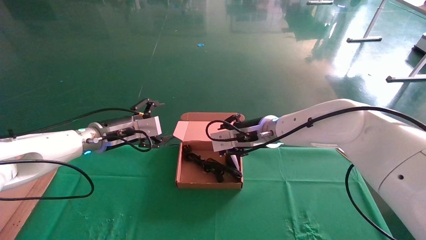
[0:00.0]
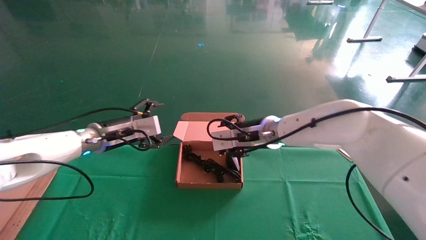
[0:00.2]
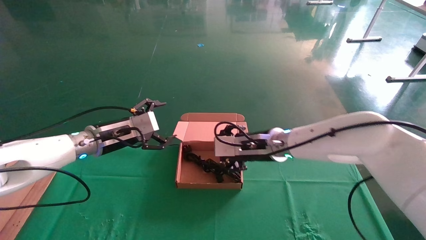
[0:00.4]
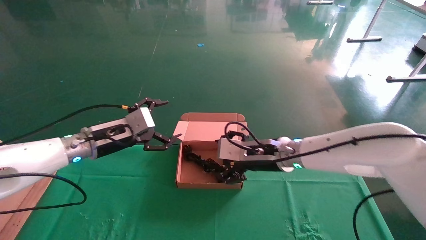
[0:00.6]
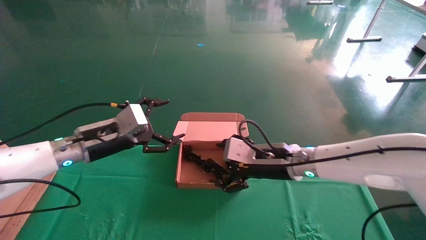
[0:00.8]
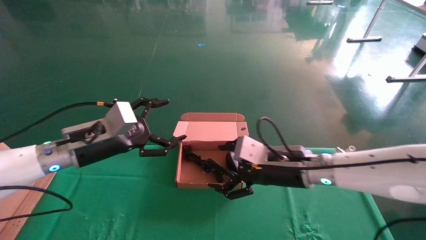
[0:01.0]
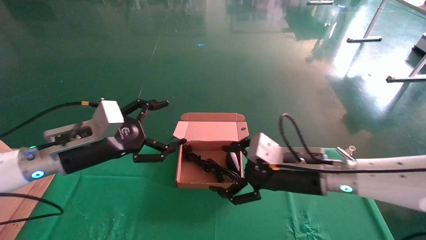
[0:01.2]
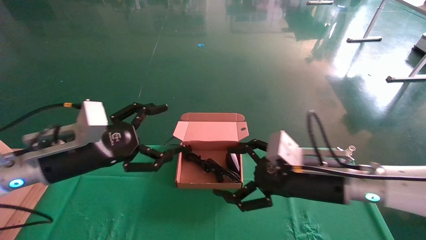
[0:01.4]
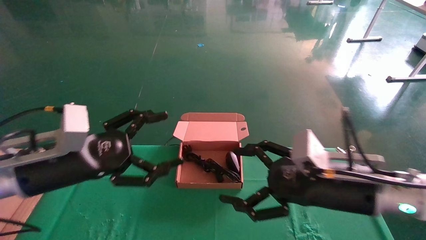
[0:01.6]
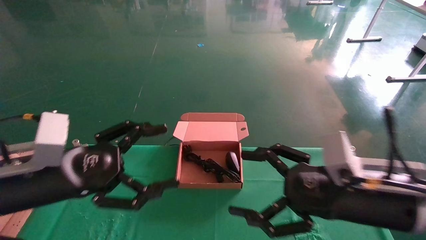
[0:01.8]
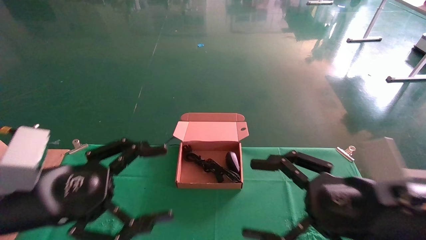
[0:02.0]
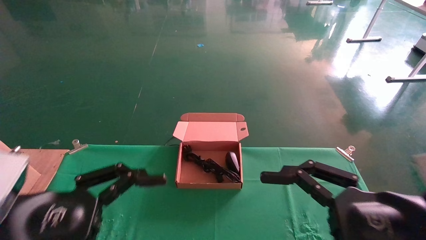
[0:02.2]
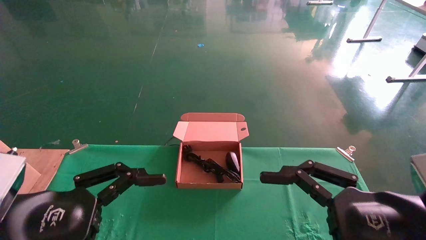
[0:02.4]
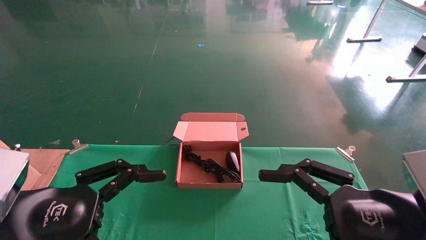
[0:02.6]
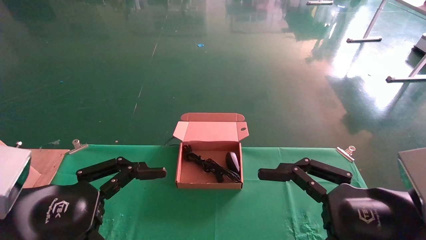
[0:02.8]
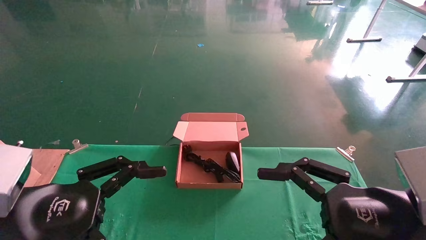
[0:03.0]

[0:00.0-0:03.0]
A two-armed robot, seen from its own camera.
0:00.0 to 0:01.6: The left gripper moves backward, roughly 20 cm. Meanwhile the right gripper moves backward and to the right, approximately 20 cm, and opens its fingers.
0:01.6 to 0:03.0: The grippers both shift backward by about 10 cm.

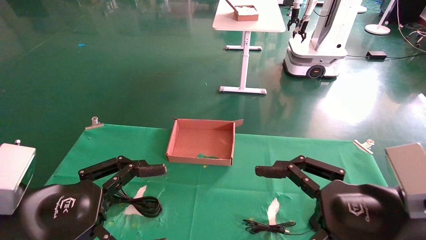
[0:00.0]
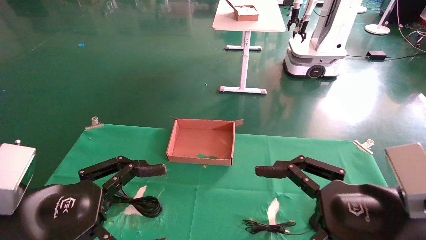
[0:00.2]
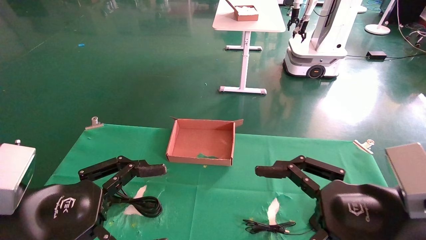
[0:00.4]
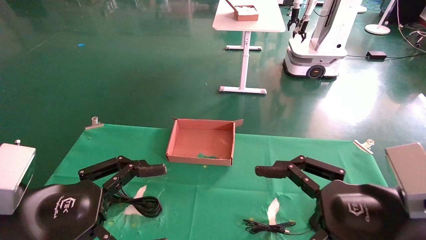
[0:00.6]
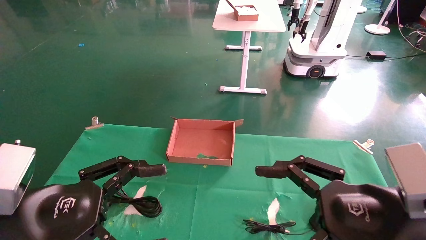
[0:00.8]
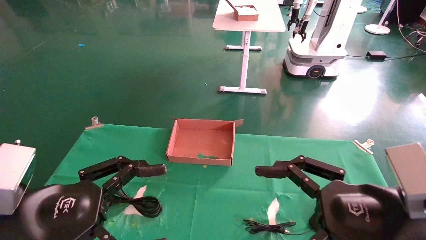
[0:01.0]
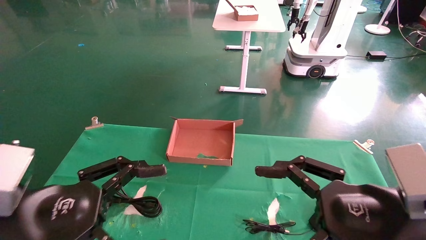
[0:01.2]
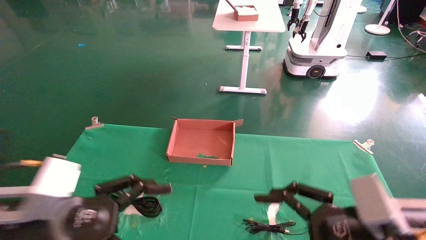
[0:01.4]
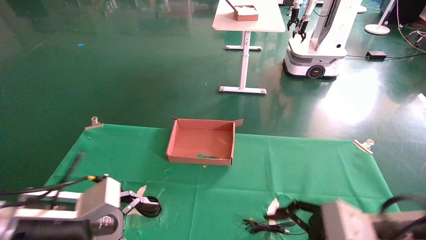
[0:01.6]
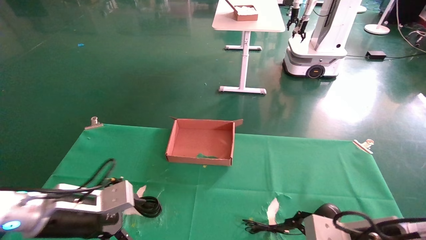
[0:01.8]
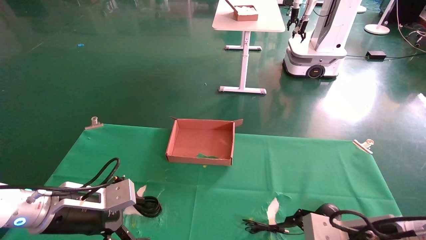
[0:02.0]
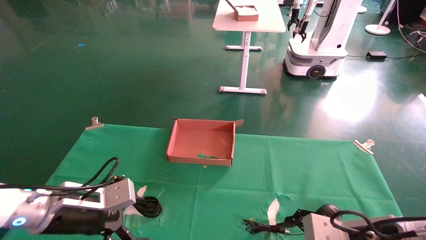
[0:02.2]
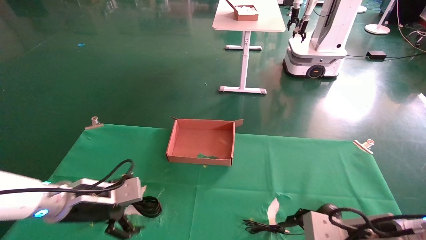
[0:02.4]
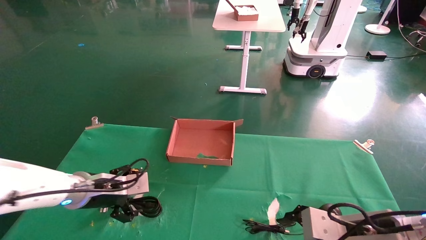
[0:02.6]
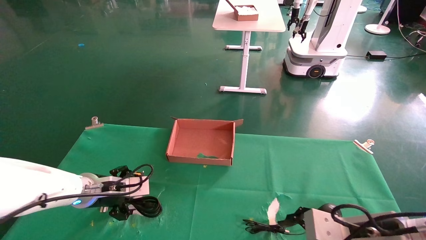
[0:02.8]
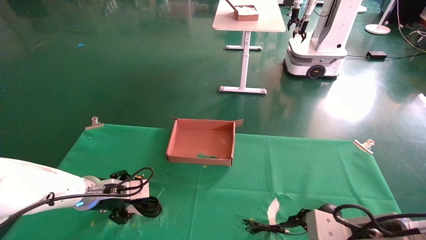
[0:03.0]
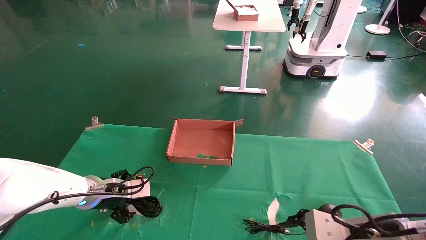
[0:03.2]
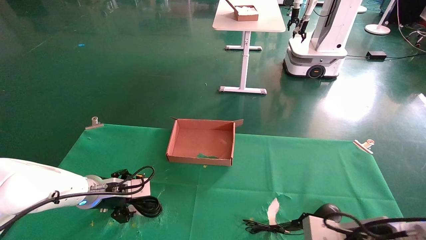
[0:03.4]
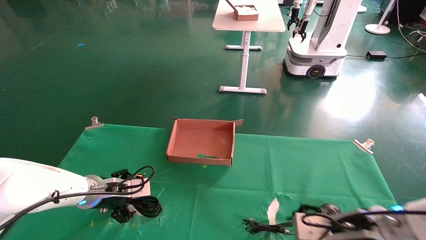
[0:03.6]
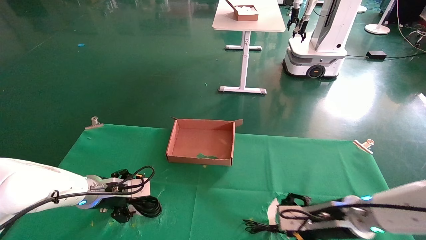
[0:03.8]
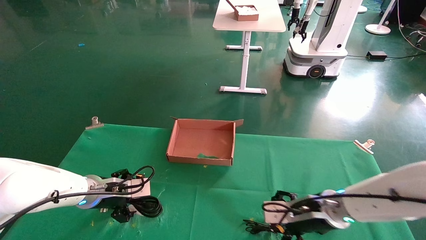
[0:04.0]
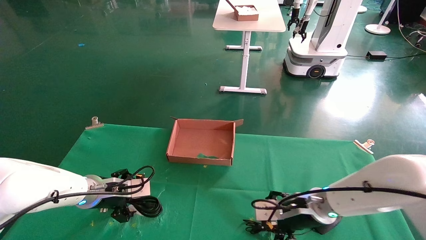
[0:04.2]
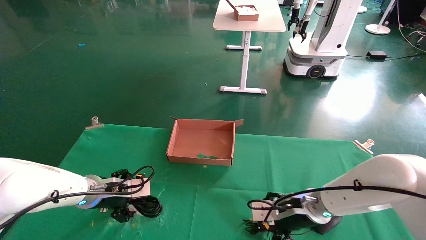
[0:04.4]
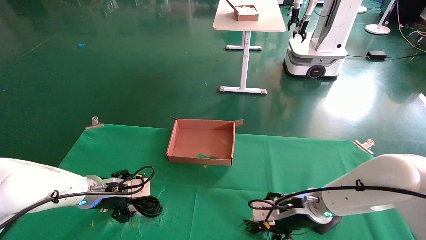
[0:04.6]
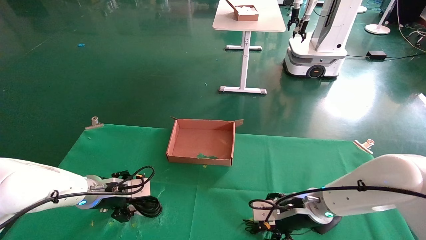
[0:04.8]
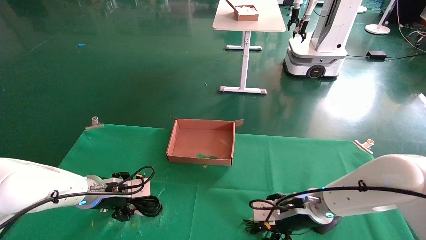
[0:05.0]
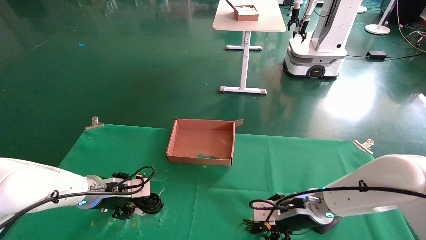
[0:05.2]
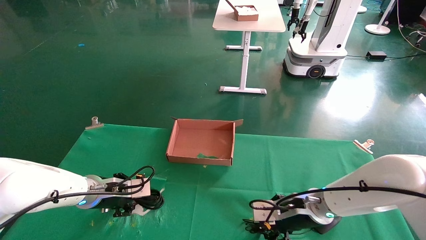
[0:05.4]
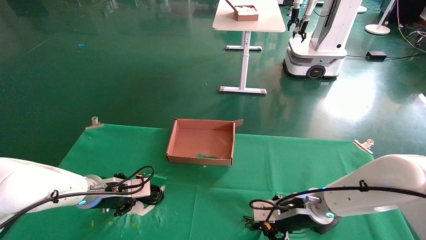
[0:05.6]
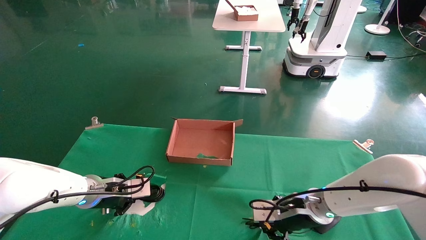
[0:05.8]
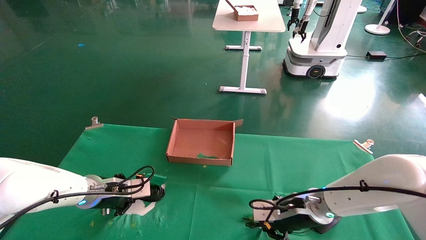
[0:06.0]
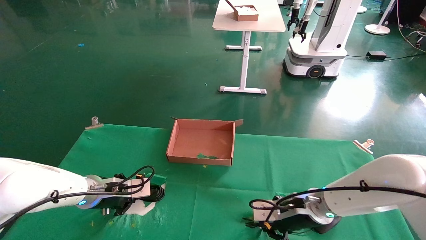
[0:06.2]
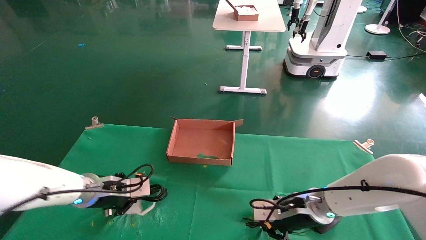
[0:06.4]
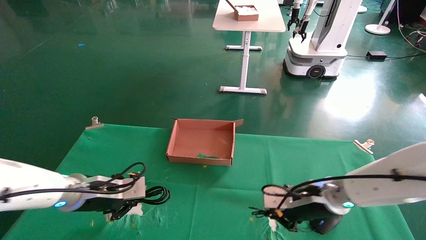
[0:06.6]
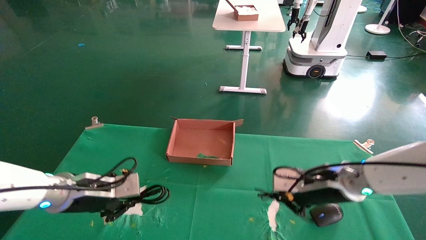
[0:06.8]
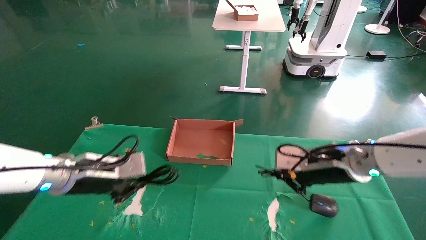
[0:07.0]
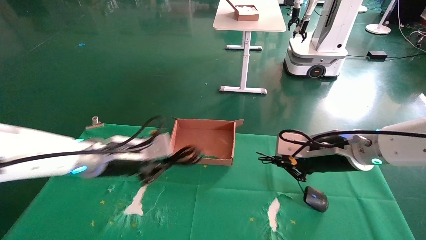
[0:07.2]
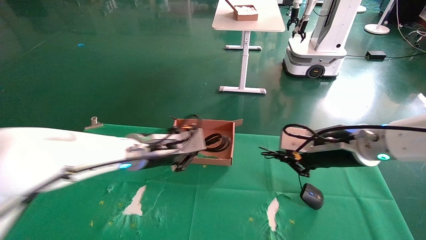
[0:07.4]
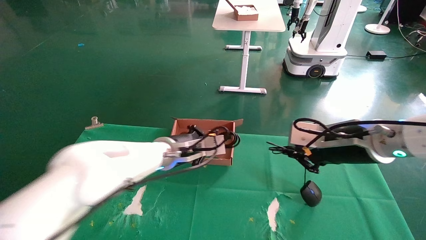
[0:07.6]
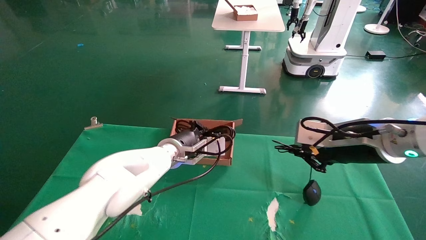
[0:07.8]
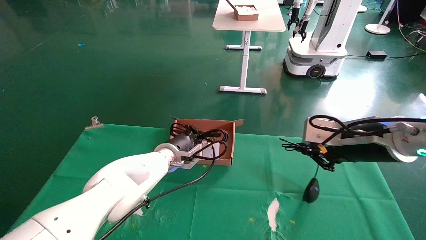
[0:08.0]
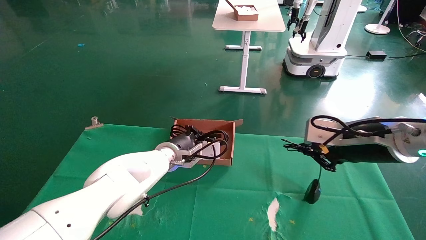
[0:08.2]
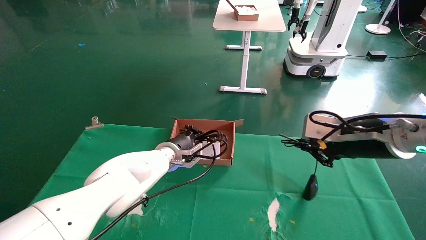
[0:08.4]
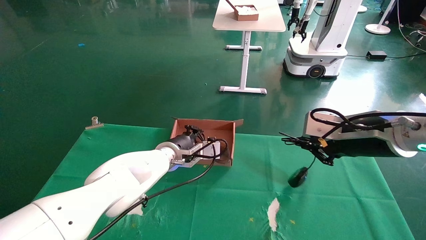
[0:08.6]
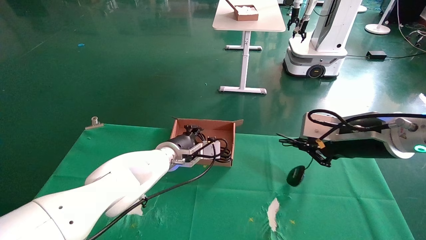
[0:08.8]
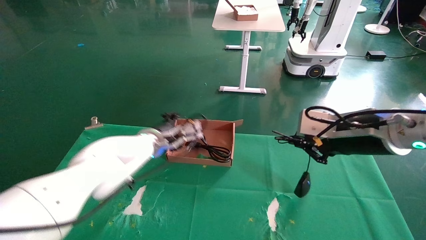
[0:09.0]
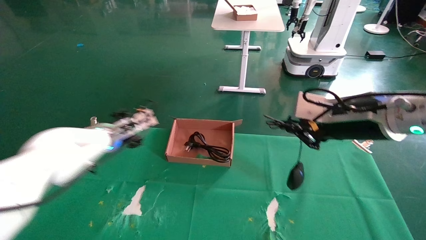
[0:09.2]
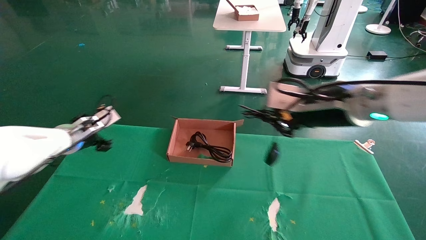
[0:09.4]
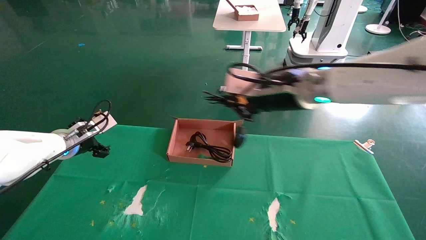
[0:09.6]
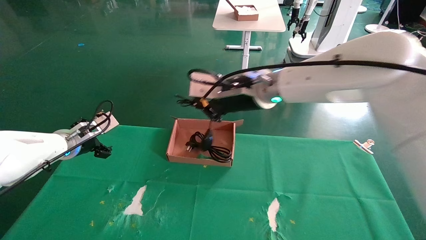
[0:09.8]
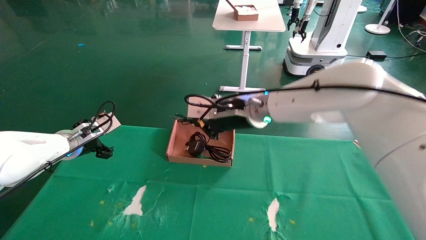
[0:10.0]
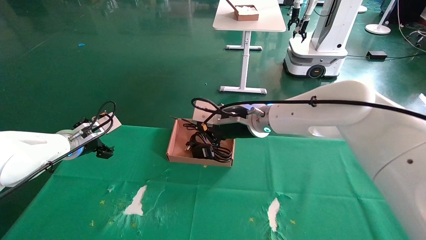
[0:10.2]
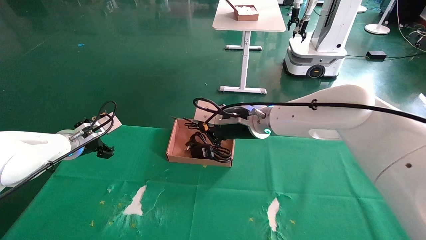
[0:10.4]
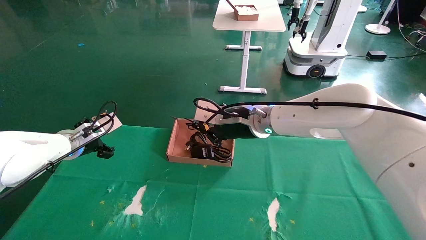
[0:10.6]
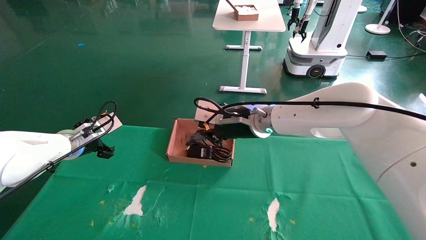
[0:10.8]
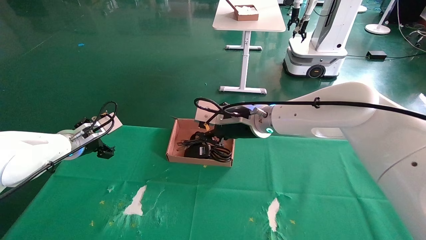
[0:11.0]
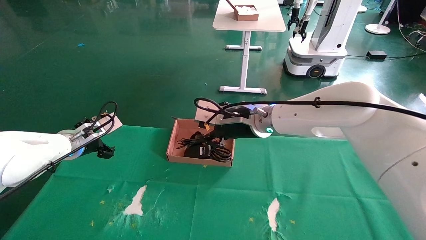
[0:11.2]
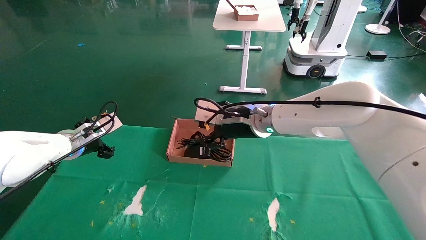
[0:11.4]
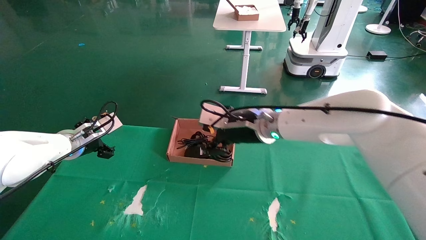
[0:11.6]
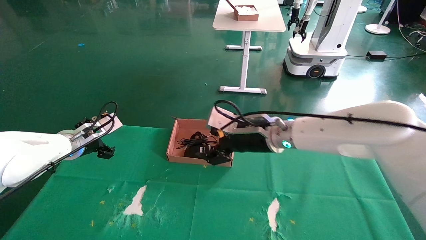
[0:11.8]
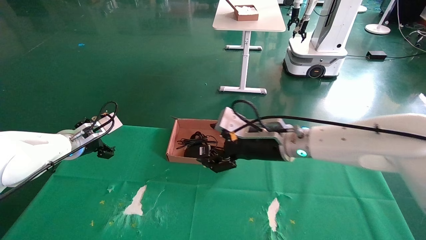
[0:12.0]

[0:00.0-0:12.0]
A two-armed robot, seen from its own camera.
Step, 0:01.2 to 0:06.2: Grab and lift both the mouse and power cord from the accessory packaging area at the same time.
0:00.0 to 0:01.6: The left gripper shifts approximately 10 cm forward and downward, while the right gripper goes roughly 5 cm downward.
0:01.6 to 0:03.0: The left gripper moves forward, approximately 15 cm.
0:03.0 to 0:04.4: The right gripper is displaced forward and to the left by approximately 15 cm.
0:04.4 to 0:06.0: The right gripper closes; the left gripper closes.
0:06.0 to 0:07.6: The right gripper travels upward by some 15 cm. Meanwhile the left gripper is displaced to the right and upward by approximately 20 cm.
0:07.6 to 0:09.0: The left gripper is displaced to the left and forward by approximately 10 cm, and opens up.
0:09.0 to 0:10.4: The left gripper moves to the left, roughly 15 cm, and opens. Meanwhile the right gripper is displaced to the left and forward by approximately 20 cm.
0:10.4 to 0:12.0: The right gripper goes some 5 cm to the right, and opens its fingers.

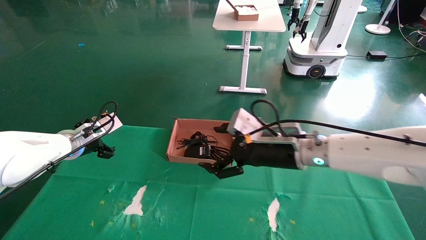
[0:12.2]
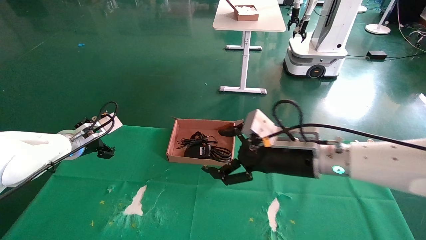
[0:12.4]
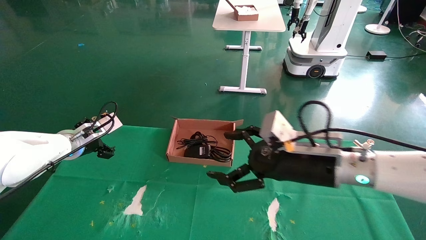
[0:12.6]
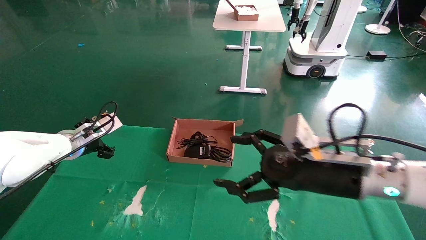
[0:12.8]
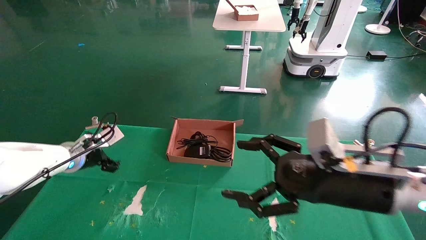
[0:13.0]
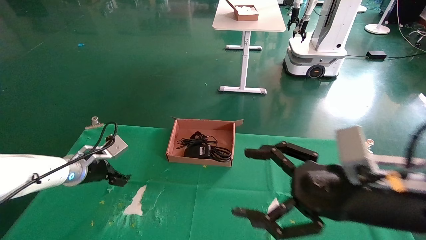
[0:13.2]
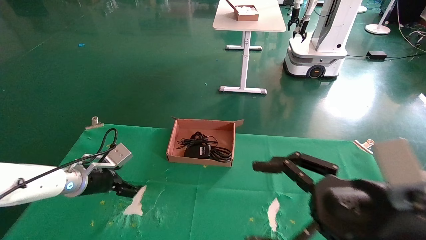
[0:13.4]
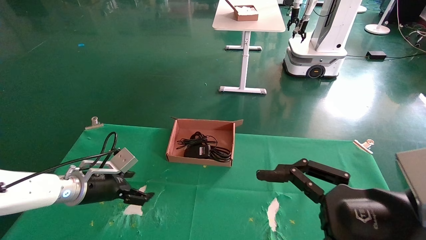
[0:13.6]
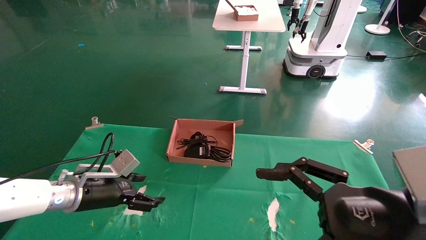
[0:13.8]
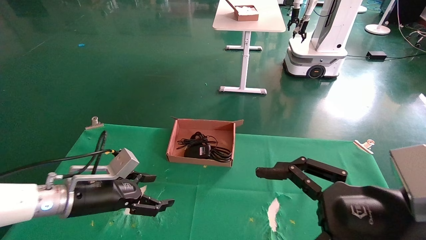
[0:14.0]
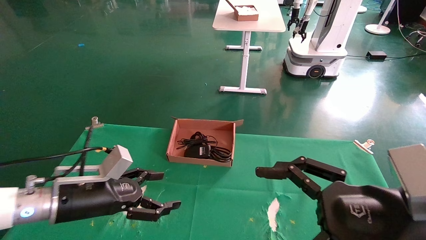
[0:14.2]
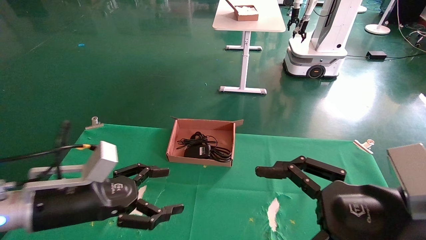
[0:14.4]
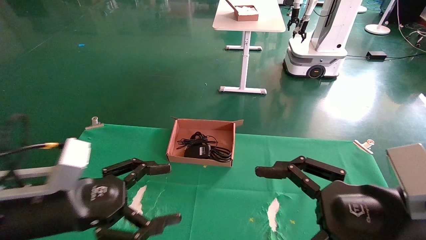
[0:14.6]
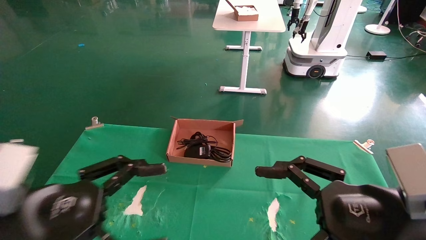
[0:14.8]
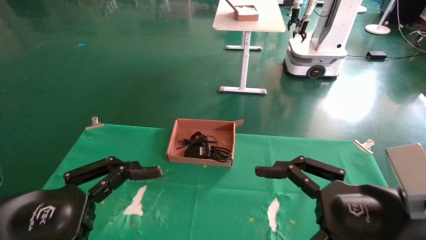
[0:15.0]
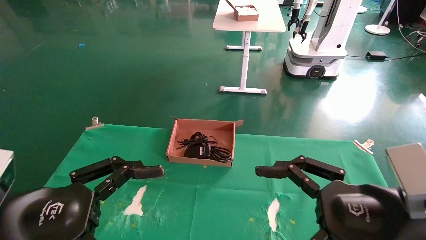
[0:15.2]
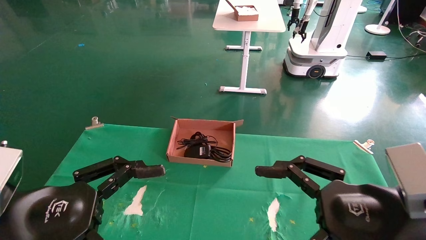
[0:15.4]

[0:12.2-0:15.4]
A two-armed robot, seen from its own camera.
0:12.2 to 0:13.8: The right gripper shifts some 20 cm backward and to the right. Meanwhile the left gripper heads backward, downward and to the right, covering approximately 15 cm.
0:13.8 to 0:15.4: The left gripper is displaced backward and upward by roughly 20 cm.
